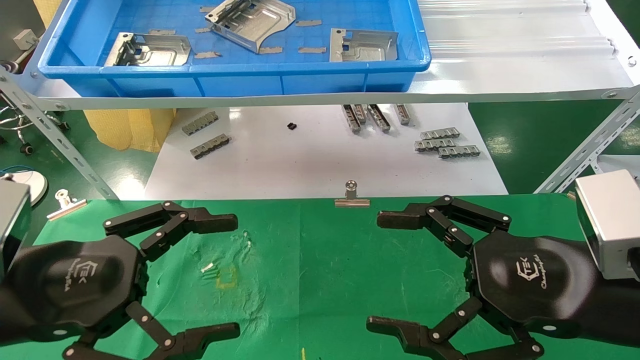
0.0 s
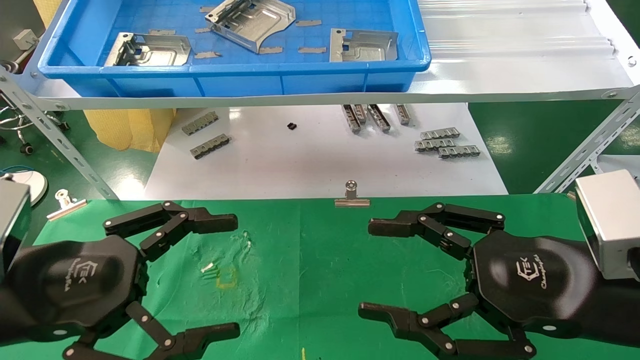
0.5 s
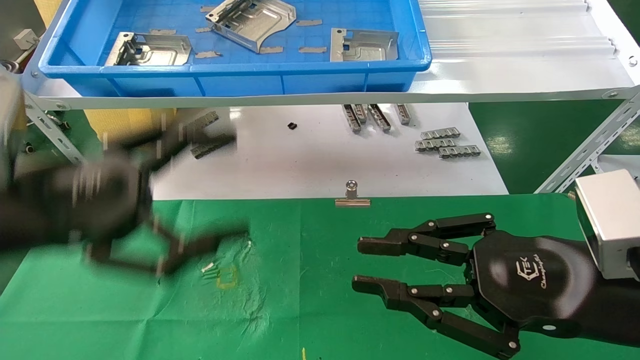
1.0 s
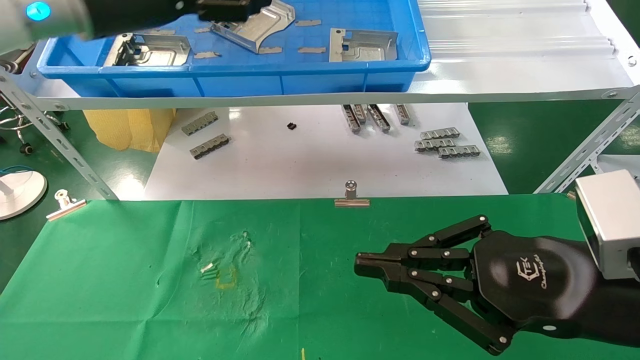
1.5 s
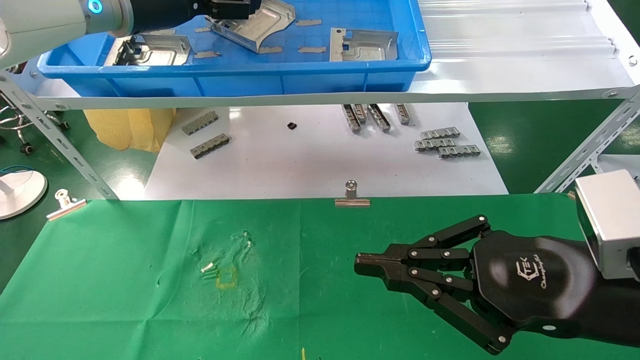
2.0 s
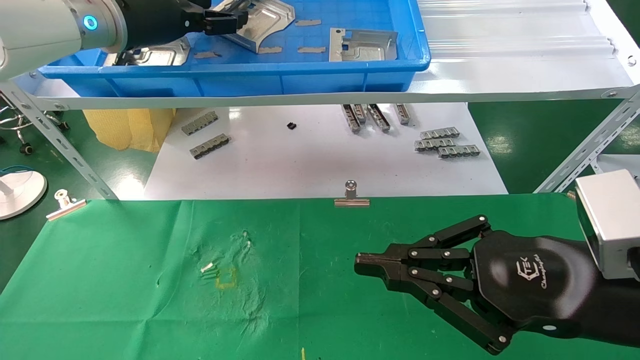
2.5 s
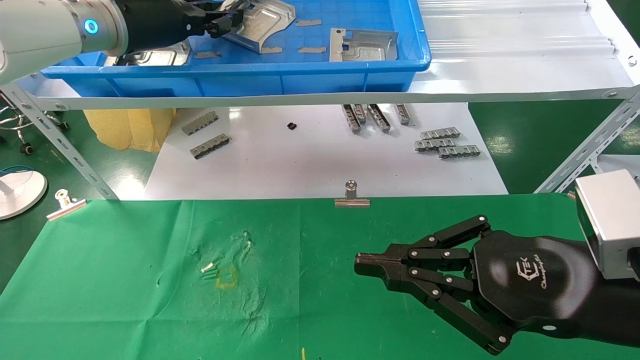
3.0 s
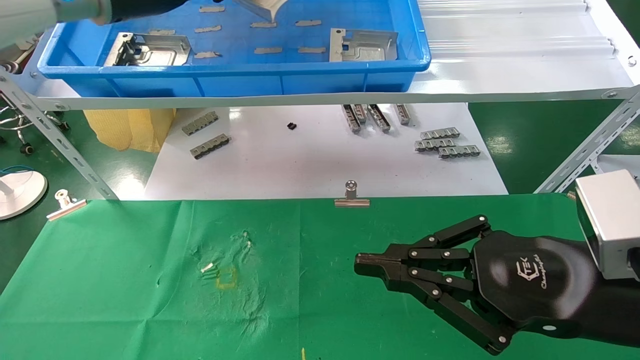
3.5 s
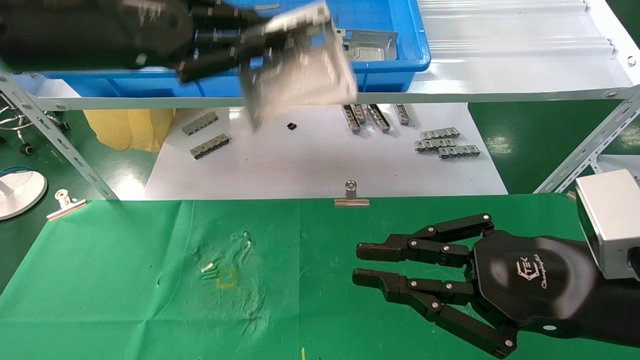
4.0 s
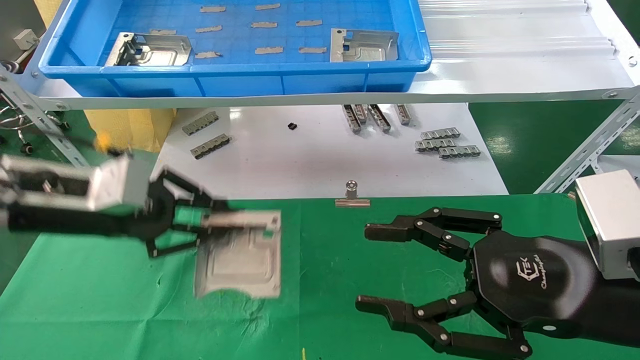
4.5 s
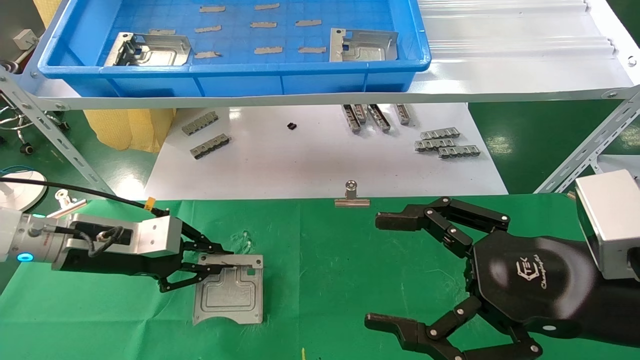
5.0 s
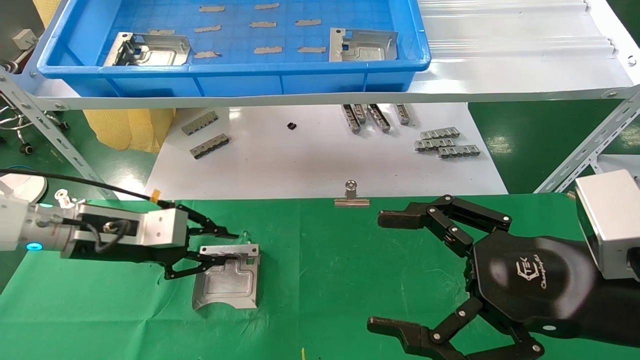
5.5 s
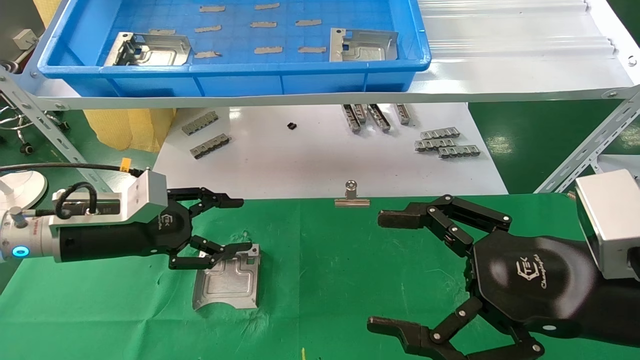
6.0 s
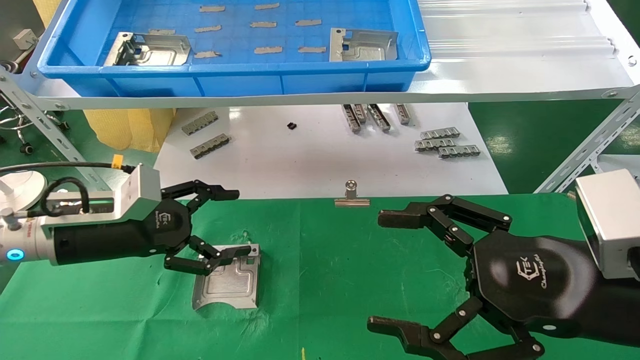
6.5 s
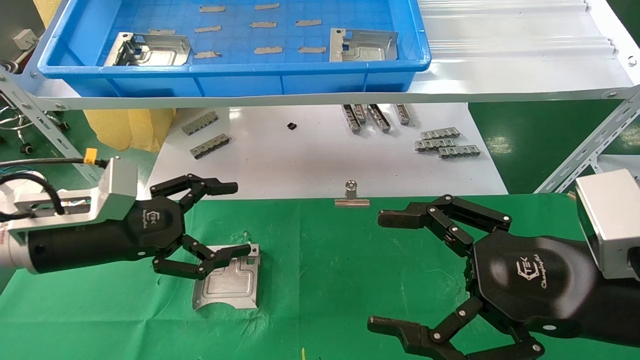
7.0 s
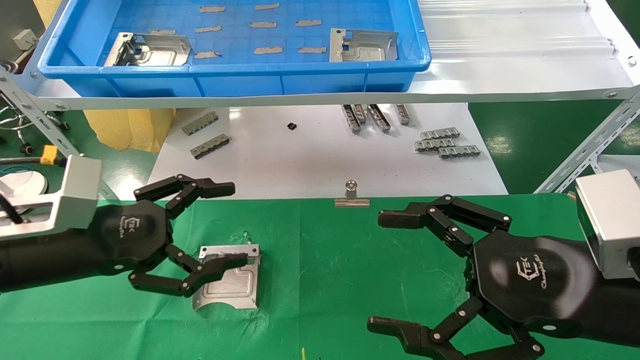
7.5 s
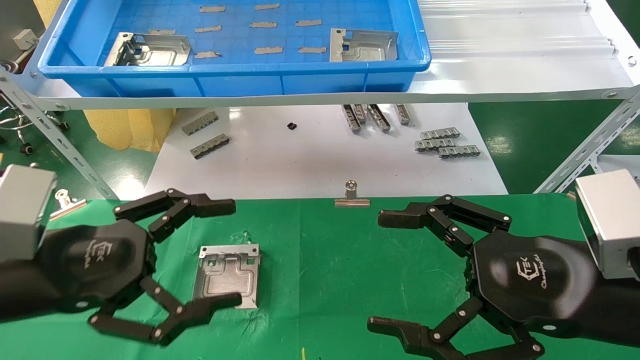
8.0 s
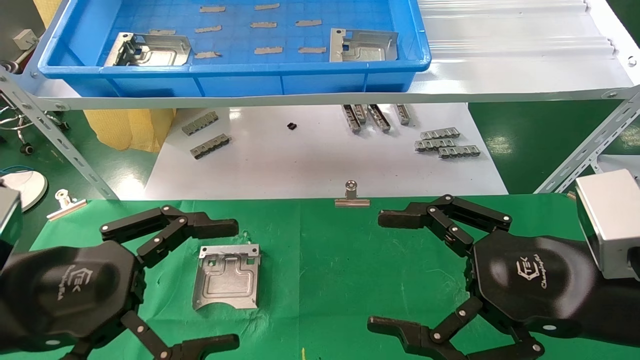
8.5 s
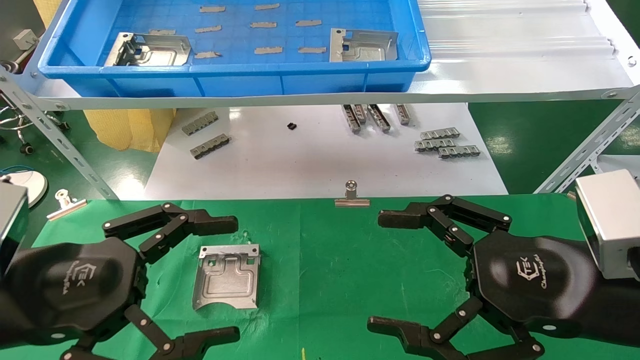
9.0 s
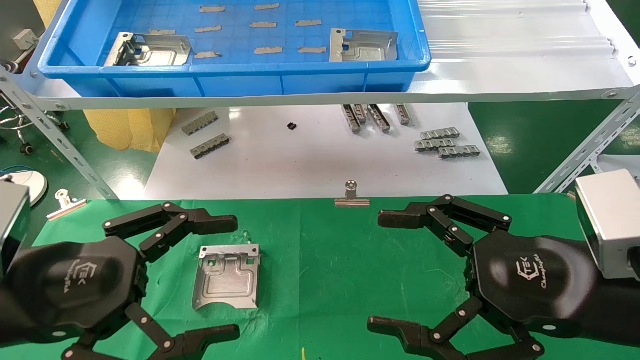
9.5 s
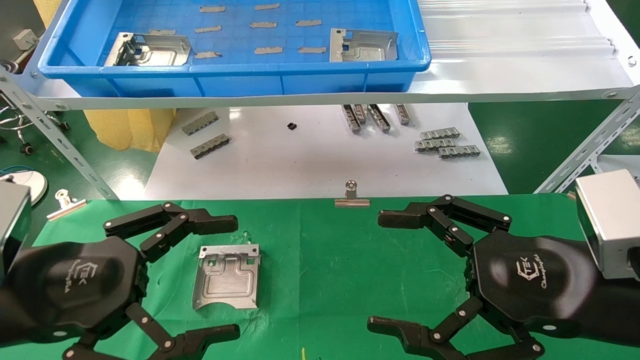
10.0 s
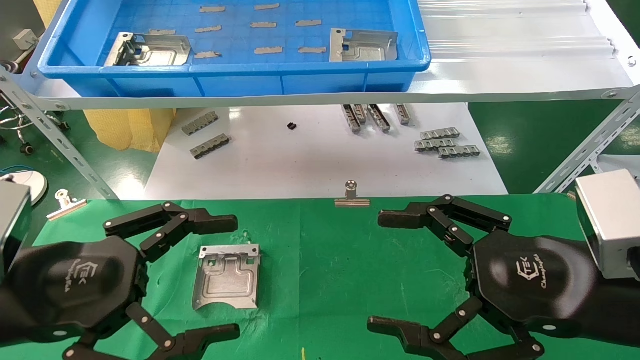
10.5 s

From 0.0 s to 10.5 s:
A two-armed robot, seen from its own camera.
Task of the whole recording: use the mechanical arm to pick up the parts and place them on the table.
Step, from 1.5 s to 3.0 s: Pick up the hard drive bracket from the feeding area.
Step, from 3.5 s to 5.5 s: Place the hard drive bracket into the box.
From 0.0 s to 2.0 s: The right gripper closes its fingers, while the left gripper shifts roughly 35 cm forward and upward.
From 2.0 s to 4.0 s: The left gripper shifts roughly 10 cm backward, and closes up.
From 4.0 s to 6.5 s: The left gripper heads downward, covering some 20 cm, and opens up. The right gripper opens its fingers.
From 6.5 s to 8.5 s: The left gripper is displaced backward by some 15 cm.
From 8.5 s to 10.5 s: Both grippers stay put.

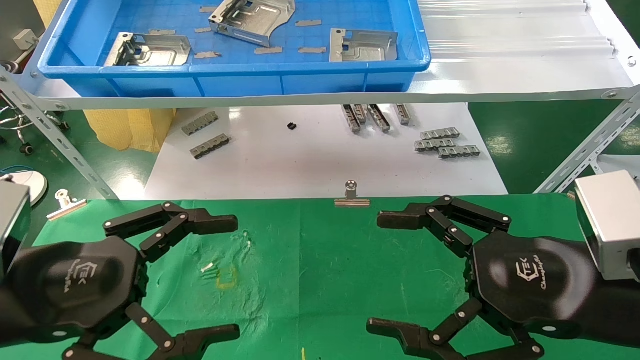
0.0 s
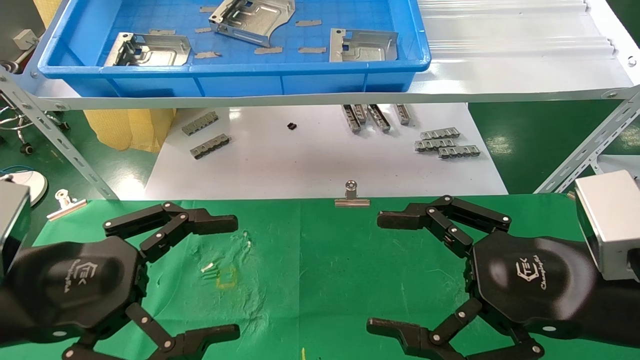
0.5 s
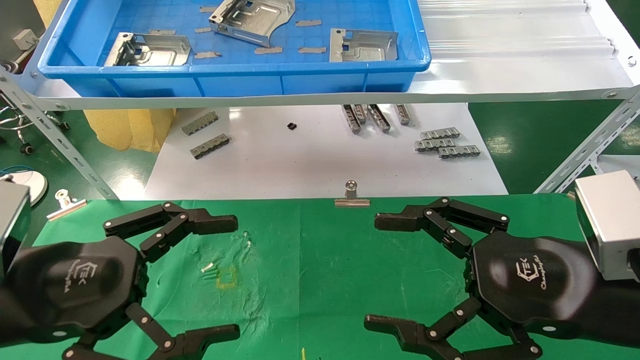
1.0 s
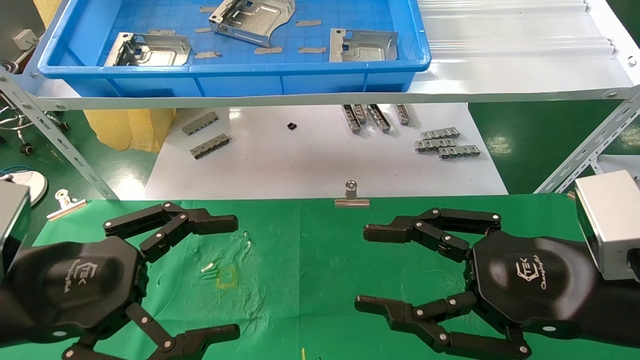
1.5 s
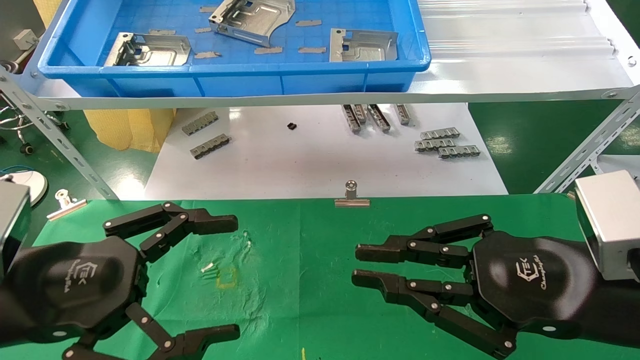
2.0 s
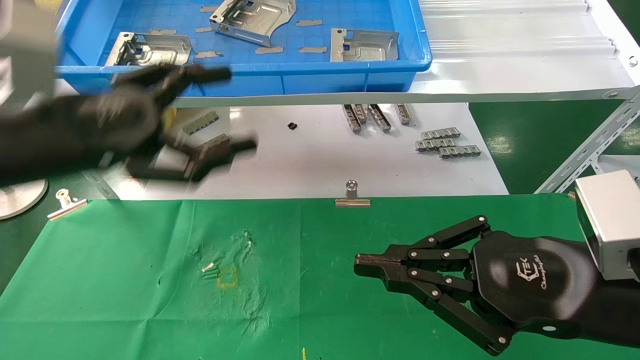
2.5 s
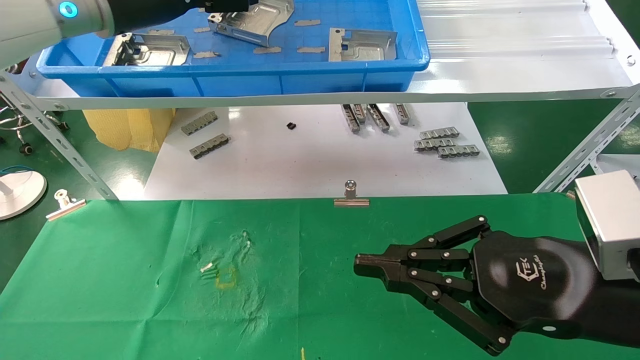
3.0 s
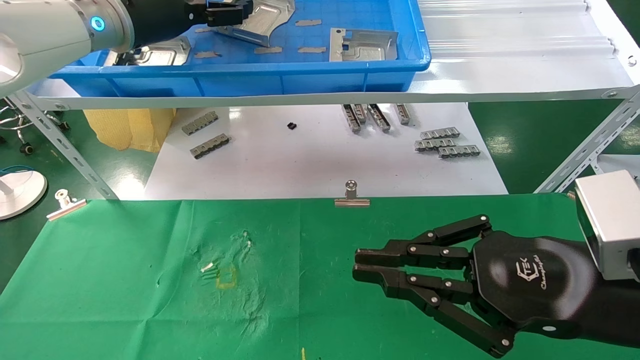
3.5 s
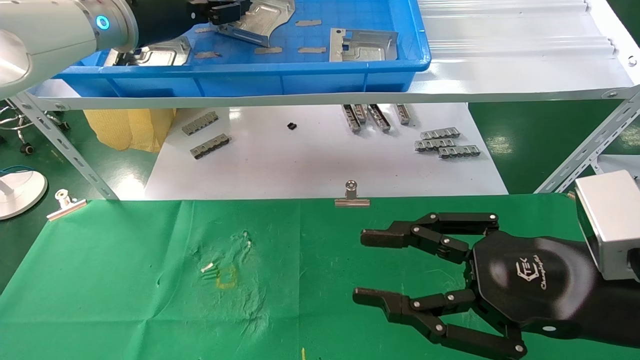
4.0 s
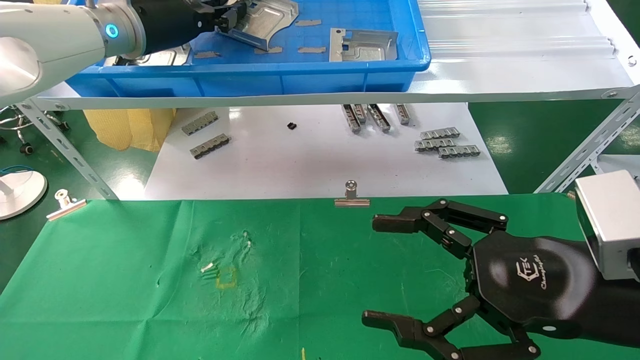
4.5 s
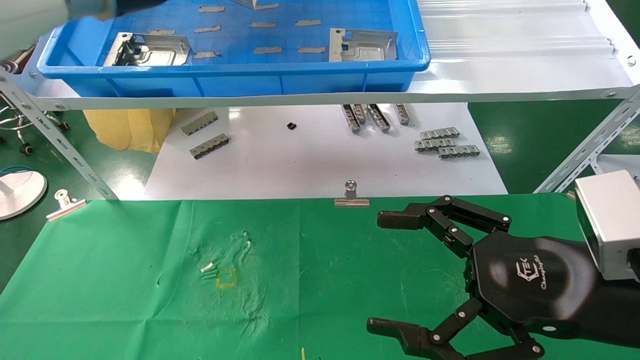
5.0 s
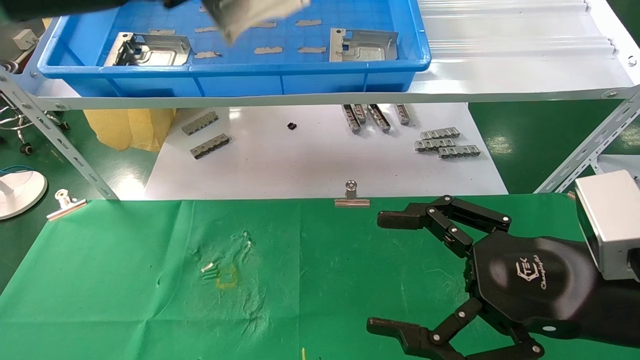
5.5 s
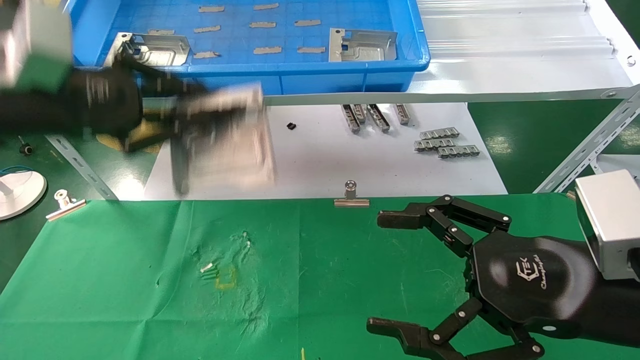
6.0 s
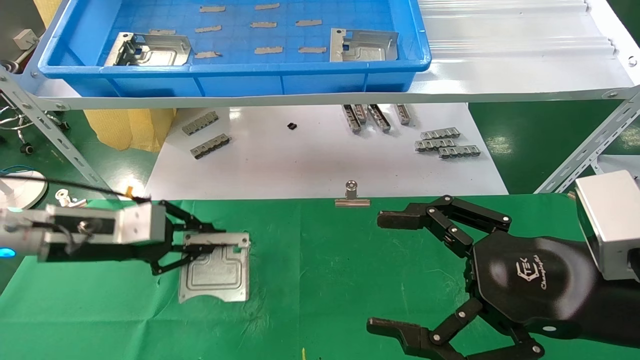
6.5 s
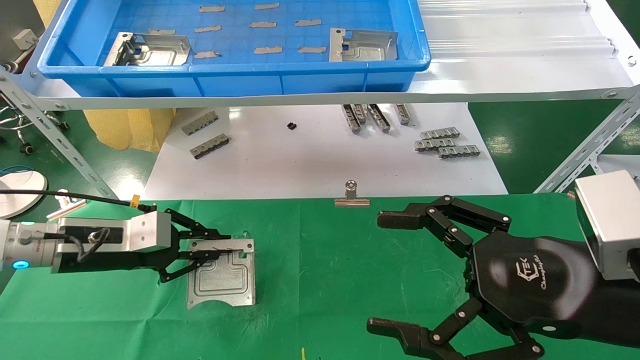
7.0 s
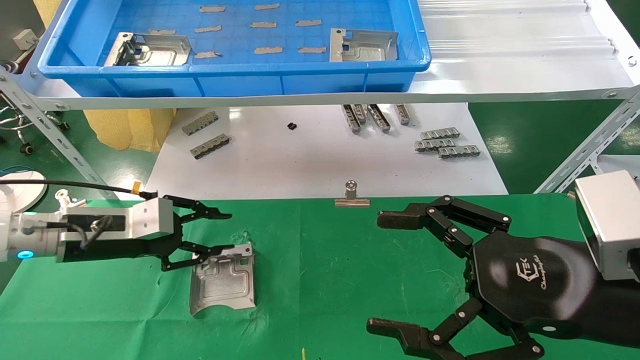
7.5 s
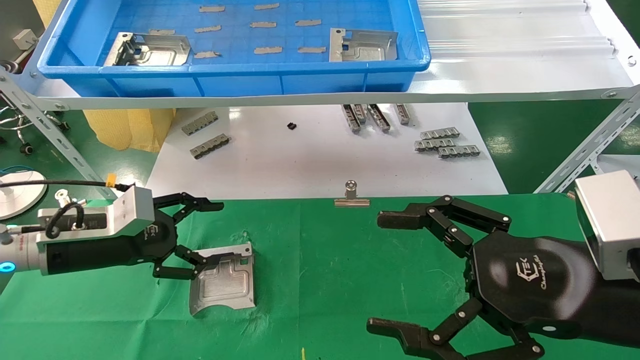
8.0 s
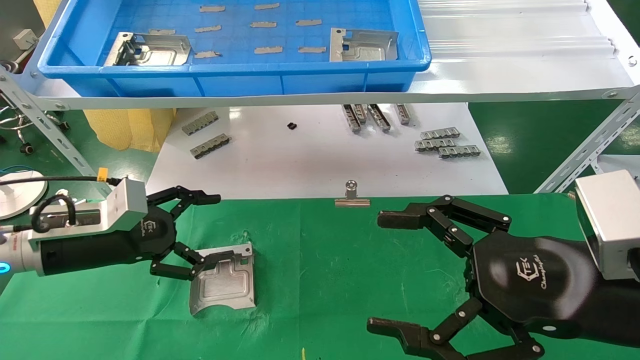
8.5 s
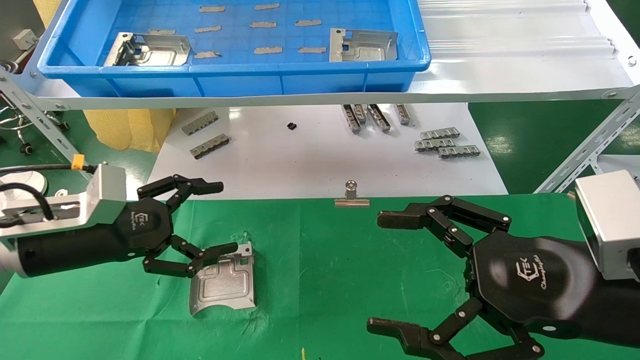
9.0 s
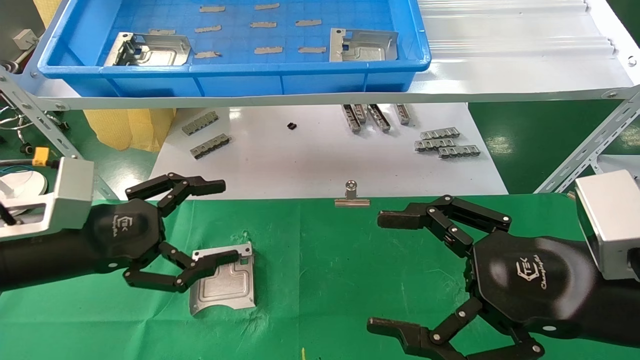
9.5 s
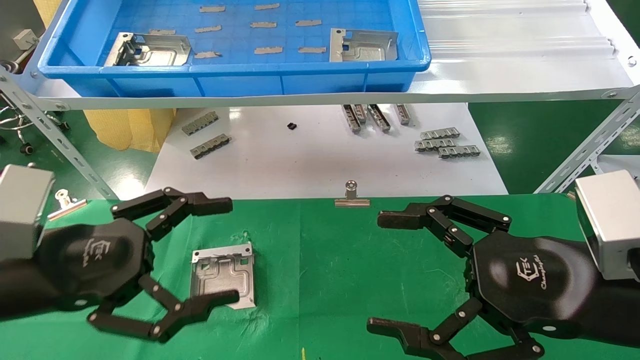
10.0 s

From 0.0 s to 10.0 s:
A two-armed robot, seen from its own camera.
Task of the whole recording: use the mechanical arm to pick up the parts and place them on the table.
Step, from 2.0 s to 4.5 s: Pick up the hard drive bracket from the feeding area.
Step, from 5.0 s to 8.0 s: Place the hard drive bracket into the box.
From 0.0 s to 2.0 s: The right gripper closes.
From 2.0 s to 4.0 s: The left gripper moves forward and upward, roughly 35 cm.
From 4.0 s to 6.0 s: The right gripper opens. Meanwhile the left gripper moves backward, downward and to the left, approximately 20 cm, and closes its fingers.
From 6.0 s to 8.0 s: The left gripper shifts roughly 15 cm downward, and opens.
From 8.0 s to 10.0 s: The left gripper goes about 15 cm backward.
